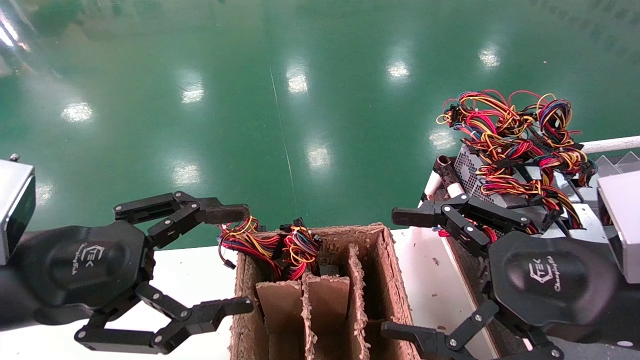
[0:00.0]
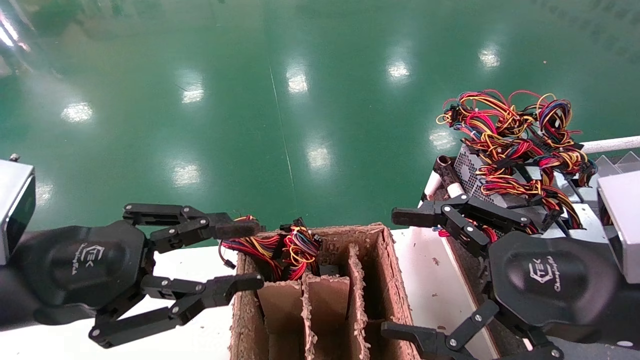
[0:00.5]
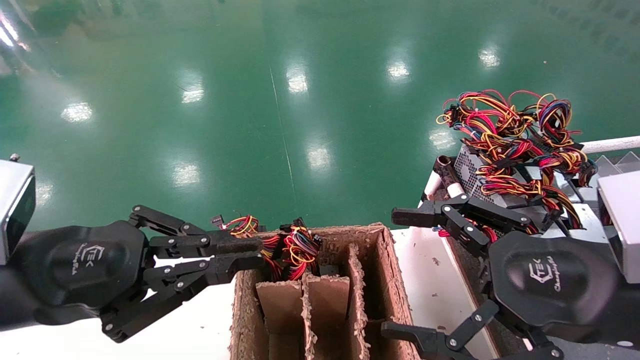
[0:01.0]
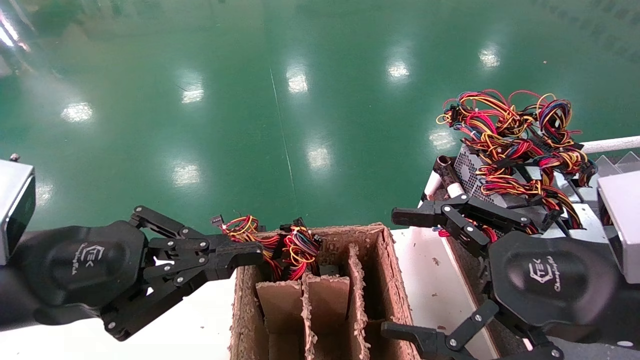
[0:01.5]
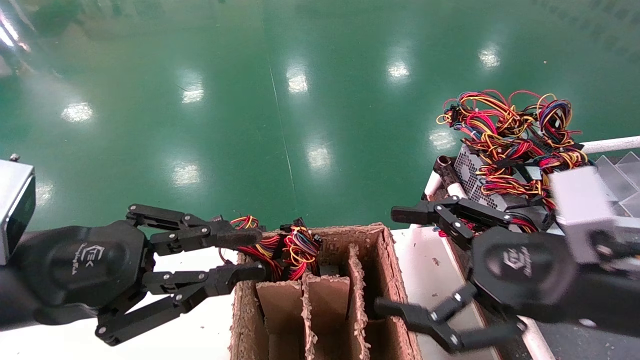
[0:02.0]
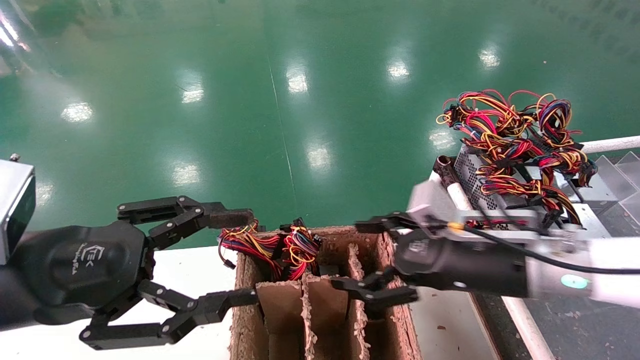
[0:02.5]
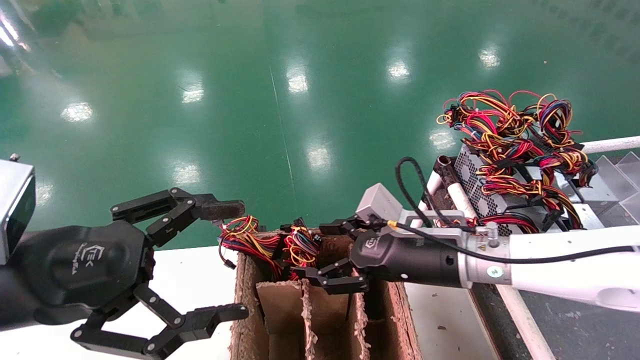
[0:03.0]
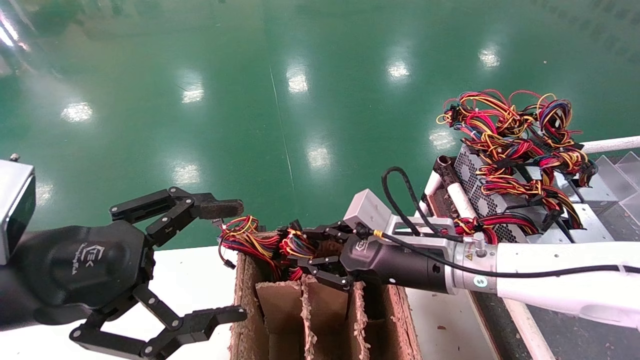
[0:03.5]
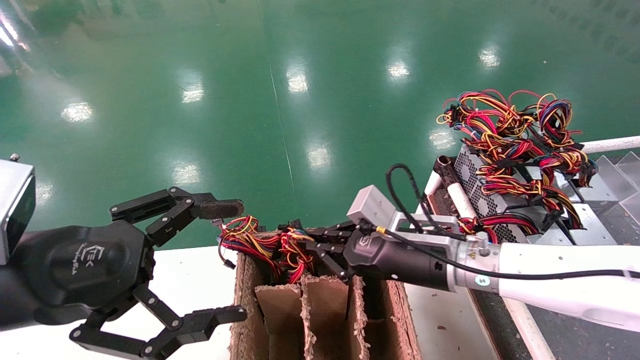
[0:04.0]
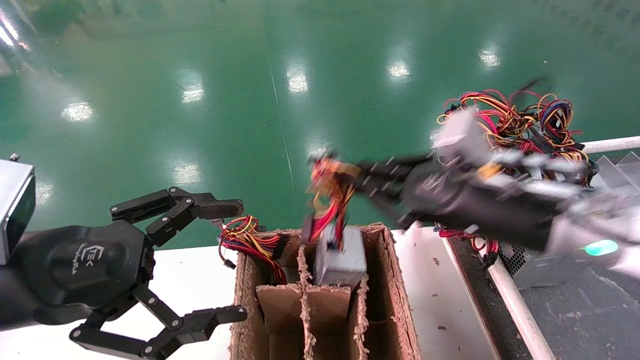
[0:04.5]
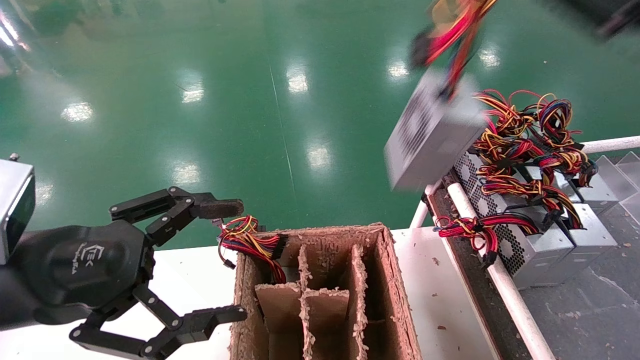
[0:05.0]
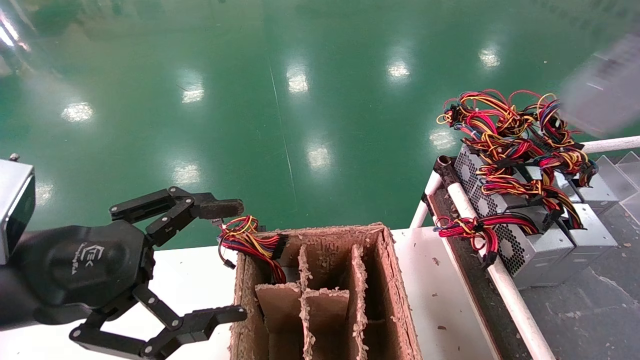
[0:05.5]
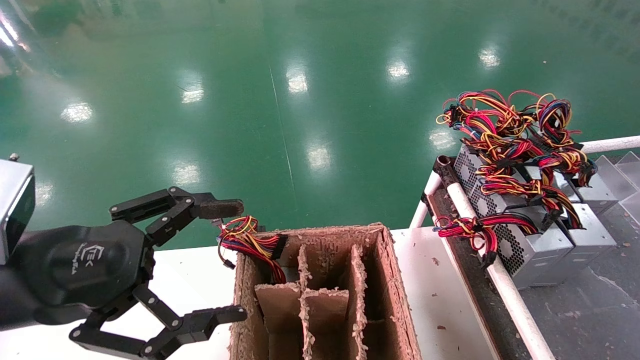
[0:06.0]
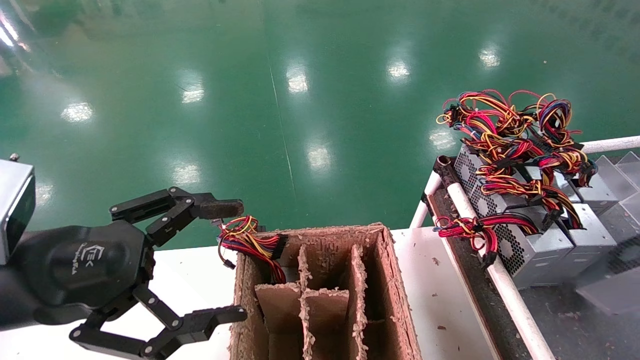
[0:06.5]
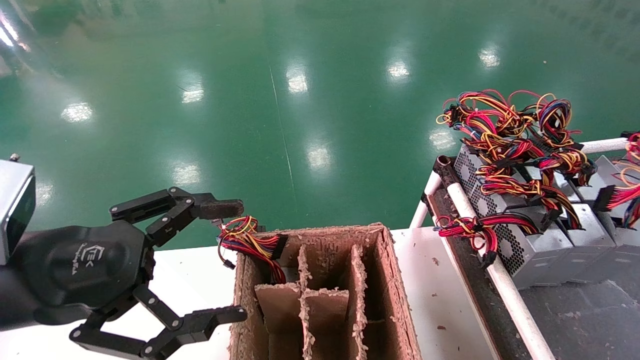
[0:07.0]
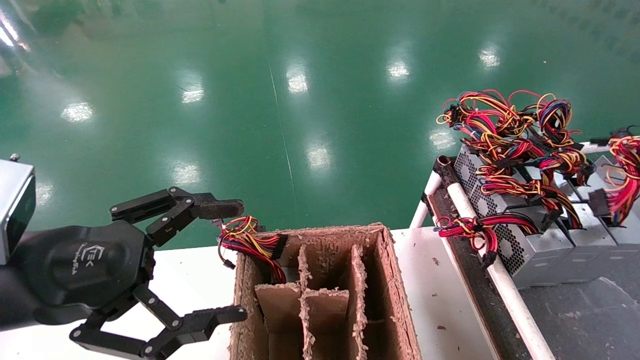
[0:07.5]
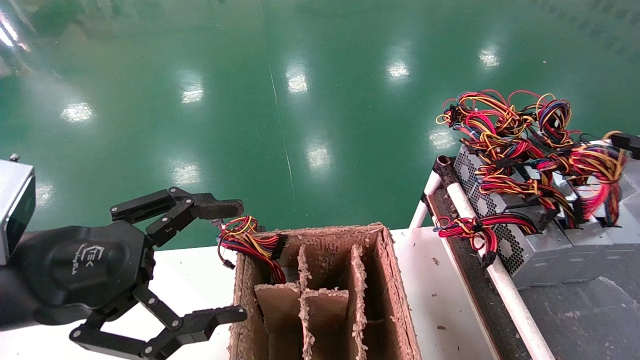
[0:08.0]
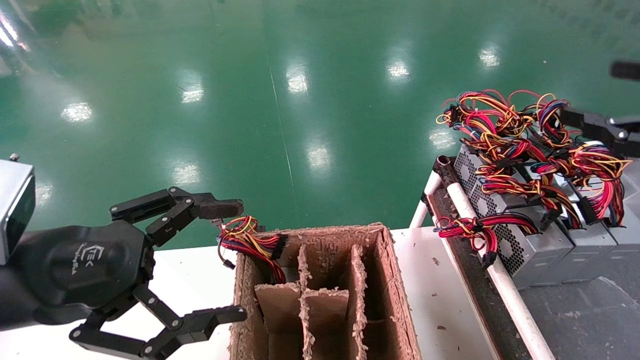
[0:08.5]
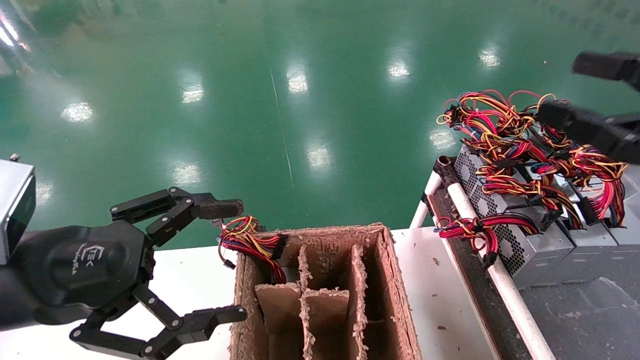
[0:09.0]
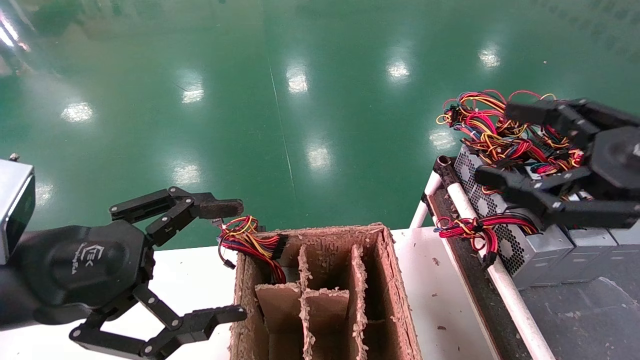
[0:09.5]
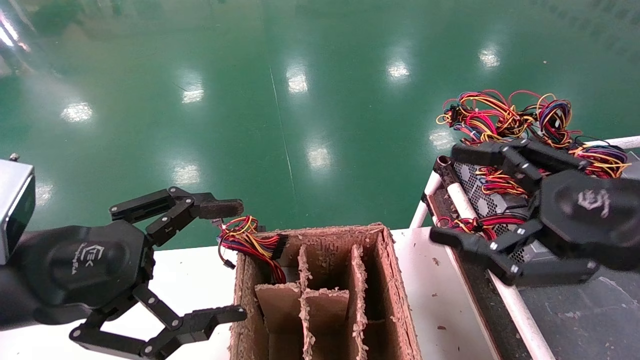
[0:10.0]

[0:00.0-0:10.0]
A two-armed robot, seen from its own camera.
Step, 0:02.5 to 0:04.0: Grab and lift the power supply from the large box.
Step, 0:04.5 to 0:07.5: Place the power supply on the operating table.
0:00.0 to 0:02.0: The left gripper closes its fingers.
0:02.0 to 0:04.0: The right gripper goes about 15 cm forward and to the left, and closes; the left gripper opens up.
0:04.0 to 0:06.0: The right gripper heads to the right, backward and upward, covering some 50 cm.
0:06.0 to 0:08.0: The right gripper travels to the left, forward and downward by roughly 15 cm.
0:08.0 to 0:10.0: The right gripper goes some 15 cm to the left, and opens.
